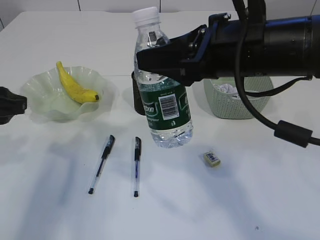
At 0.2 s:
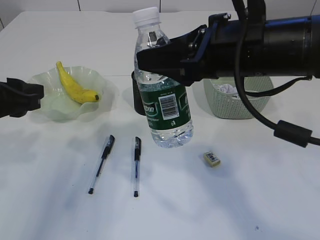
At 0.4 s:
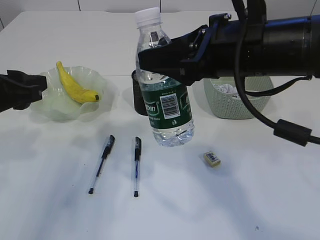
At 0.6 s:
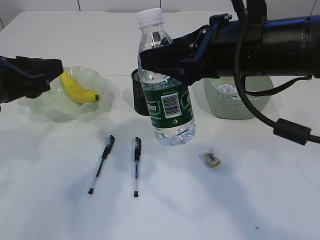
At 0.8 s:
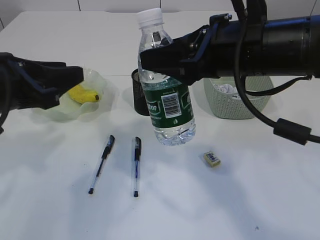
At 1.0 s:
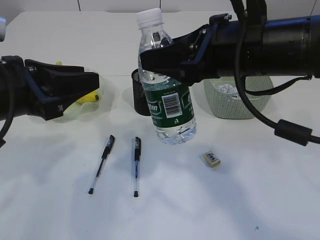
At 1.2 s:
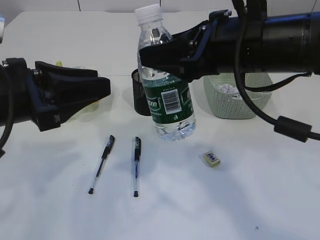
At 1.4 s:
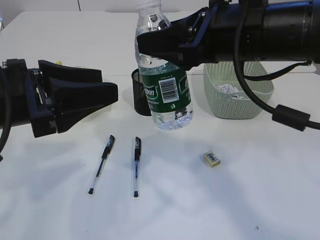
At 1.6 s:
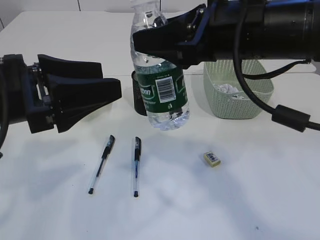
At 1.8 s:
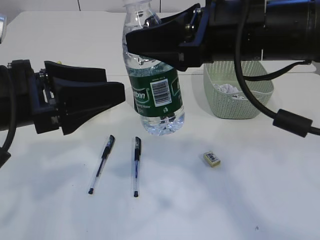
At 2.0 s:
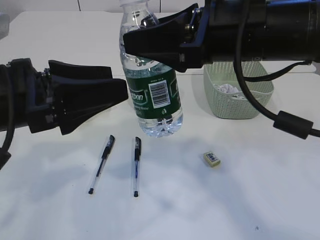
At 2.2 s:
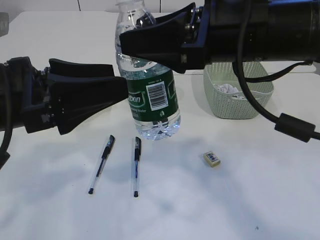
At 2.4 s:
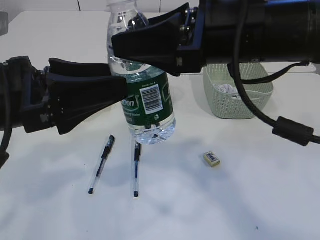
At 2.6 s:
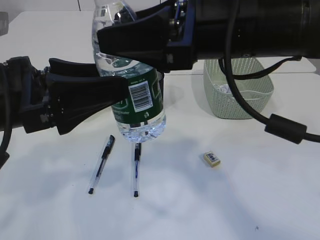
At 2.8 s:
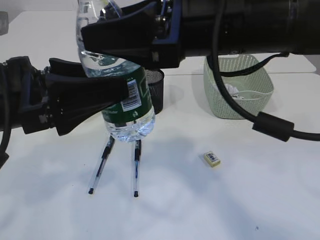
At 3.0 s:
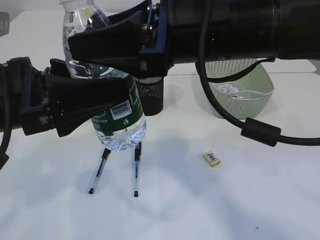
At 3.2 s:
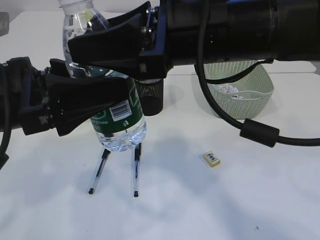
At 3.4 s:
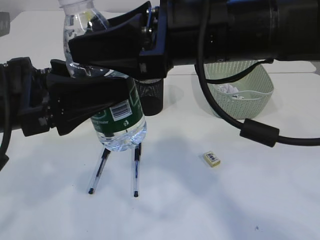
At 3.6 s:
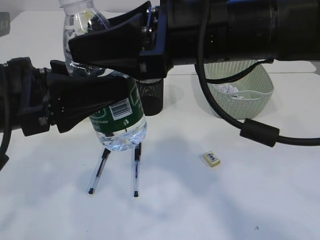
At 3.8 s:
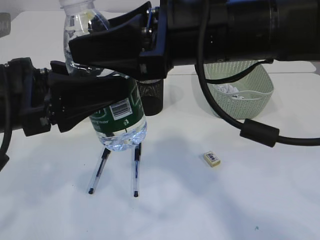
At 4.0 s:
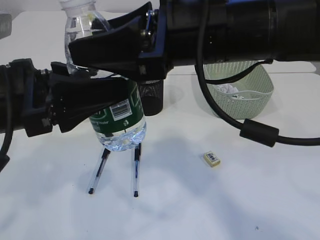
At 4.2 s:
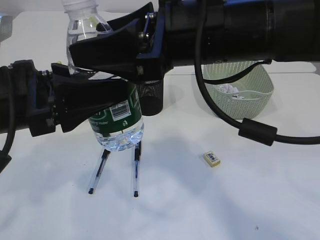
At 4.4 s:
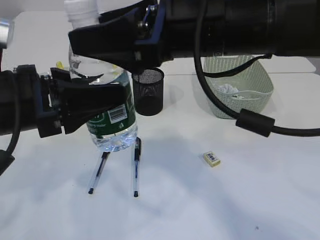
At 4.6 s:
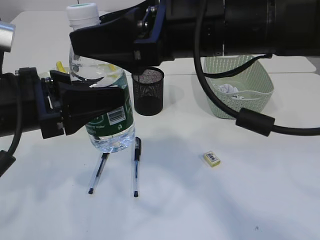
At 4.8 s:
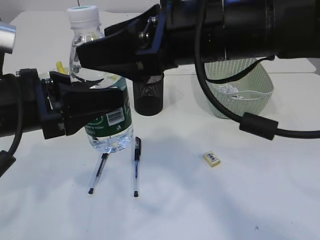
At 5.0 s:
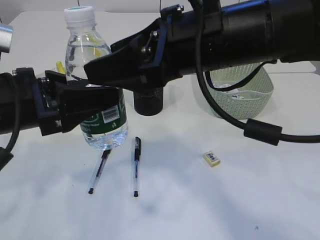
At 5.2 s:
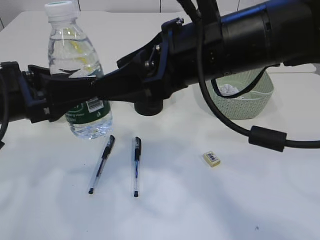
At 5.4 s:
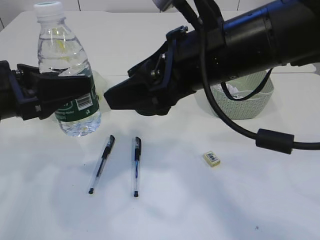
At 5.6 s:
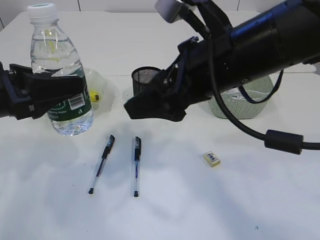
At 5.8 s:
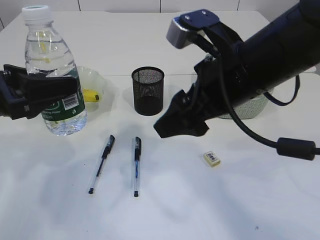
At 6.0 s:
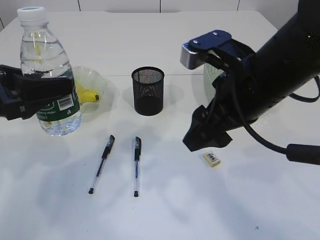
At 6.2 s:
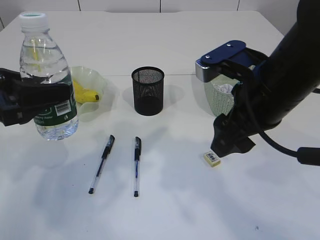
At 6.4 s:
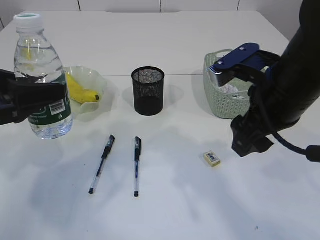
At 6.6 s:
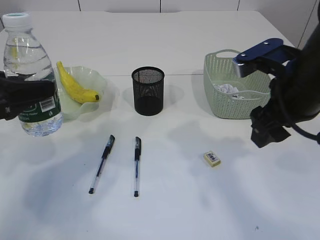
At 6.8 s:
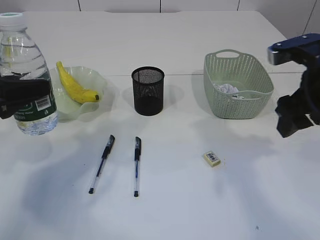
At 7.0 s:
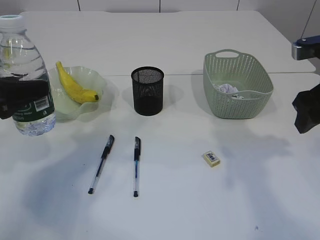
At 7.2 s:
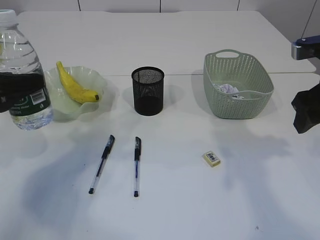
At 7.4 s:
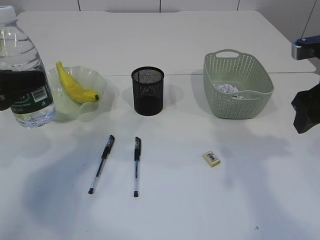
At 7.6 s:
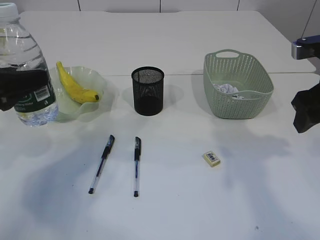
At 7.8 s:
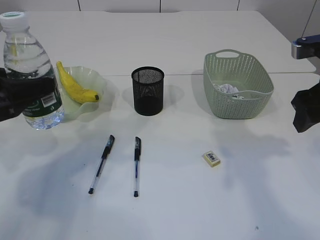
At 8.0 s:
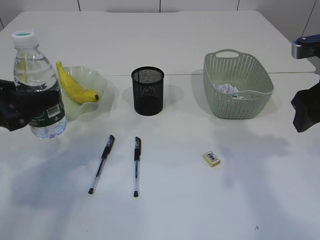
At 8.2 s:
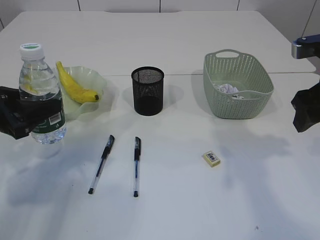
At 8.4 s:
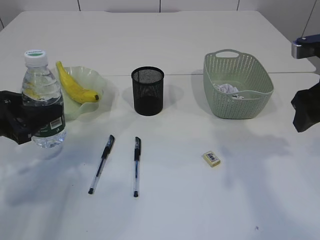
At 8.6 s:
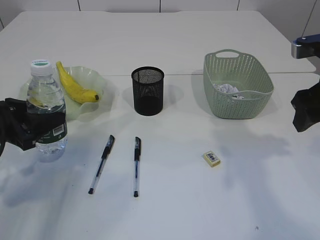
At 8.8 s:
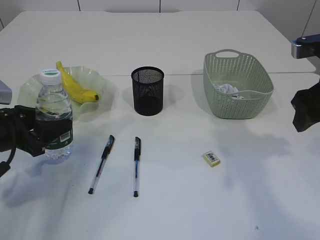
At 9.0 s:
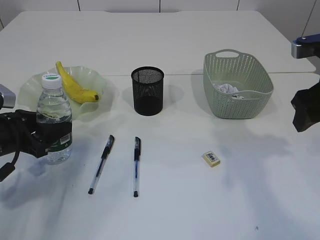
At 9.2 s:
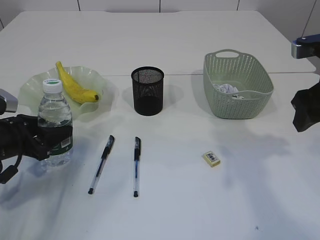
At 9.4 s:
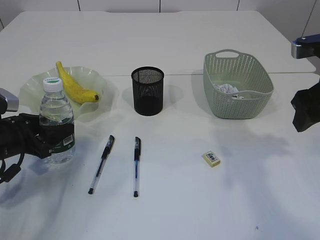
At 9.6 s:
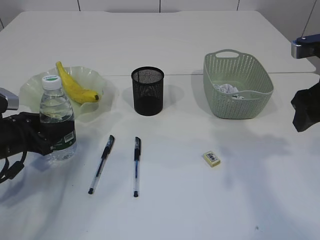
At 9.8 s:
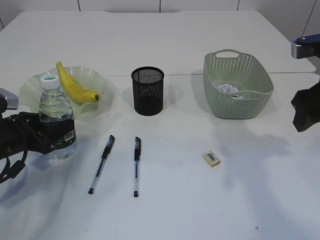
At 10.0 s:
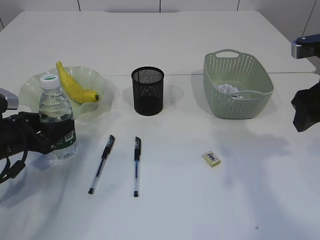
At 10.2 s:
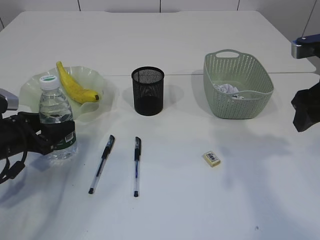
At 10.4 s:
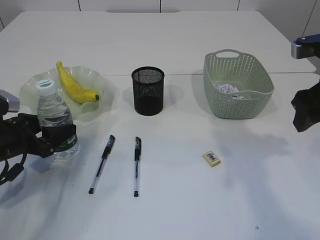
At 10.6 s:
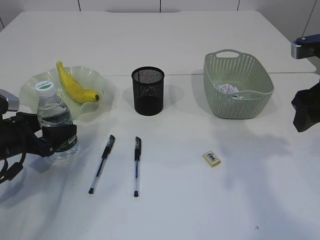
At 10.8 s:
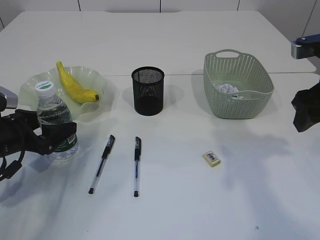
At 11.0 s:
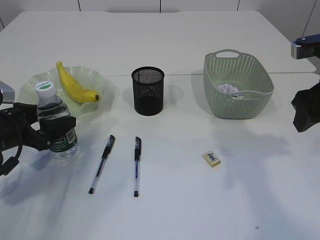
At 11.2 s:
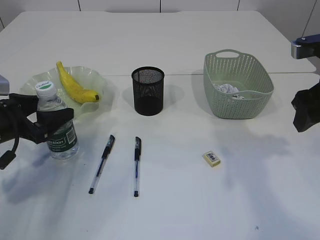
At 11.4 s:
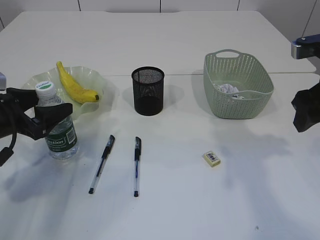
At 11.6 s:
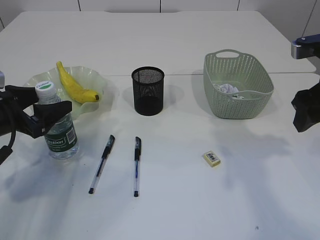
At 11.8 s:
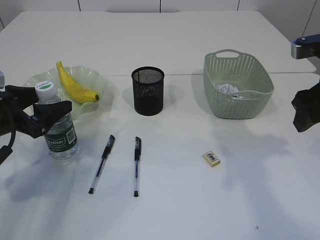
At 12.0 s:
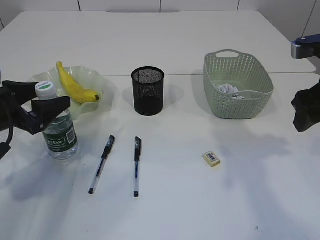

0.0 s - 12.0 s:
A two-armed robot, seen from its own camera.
Step, 0.0 s - 5.2 s: transfer the bottle to the left arm.
0.0 s - 1.6 s: The left gripper travels to the right by approximately 10 cm, and opens up.
1.6 s - 3.0 s: The right gripper ends up roughly 5 cm from where it was.
3.0 s - 4.4 s: The left gripper closes.
4.4 s - 6.0 s: The left gripper is displaced to the left by some 5 cm, while the right gripper heads downward and to the right, covering roughly 10 cm.
6.0 s - 7.6 s: The right gripper travels to the right by some 15 cm.
7.6 s - 9.0 s: The left gripper heads downward, covering roughly 10 cm.
9.0 s - 10.4 s: The grippers move only a little.
10.4 s - 12.0 s: The left gripper moves upward, about 5 cm.

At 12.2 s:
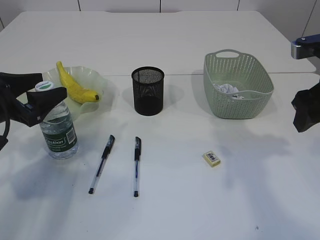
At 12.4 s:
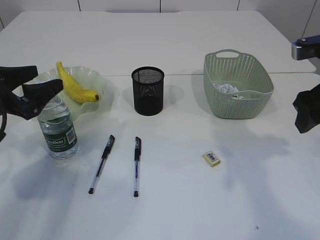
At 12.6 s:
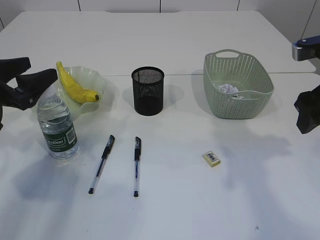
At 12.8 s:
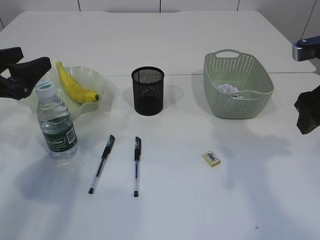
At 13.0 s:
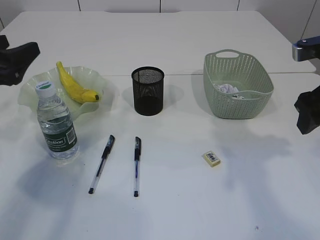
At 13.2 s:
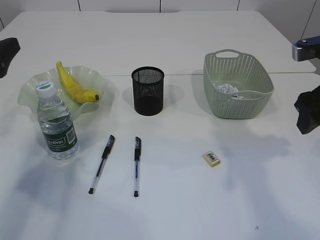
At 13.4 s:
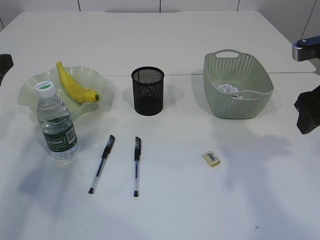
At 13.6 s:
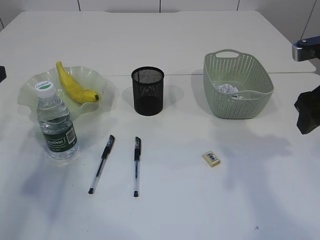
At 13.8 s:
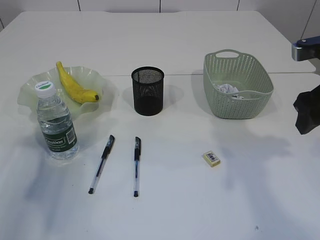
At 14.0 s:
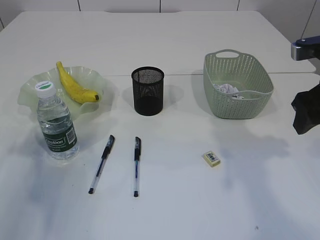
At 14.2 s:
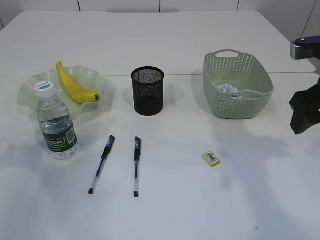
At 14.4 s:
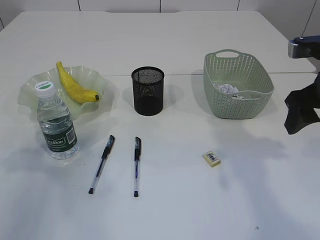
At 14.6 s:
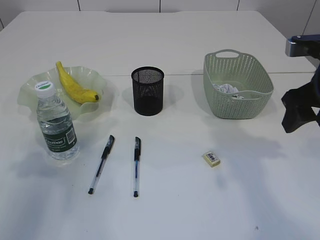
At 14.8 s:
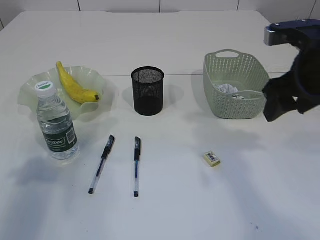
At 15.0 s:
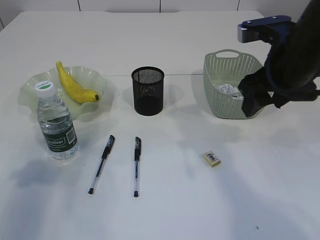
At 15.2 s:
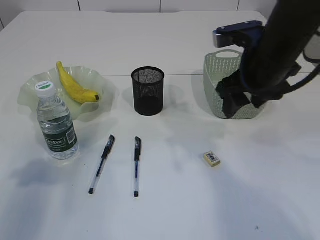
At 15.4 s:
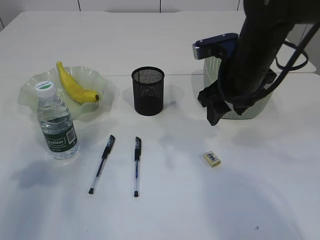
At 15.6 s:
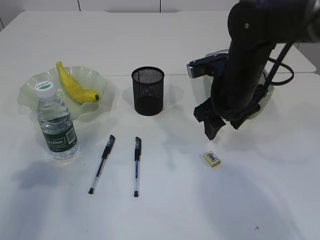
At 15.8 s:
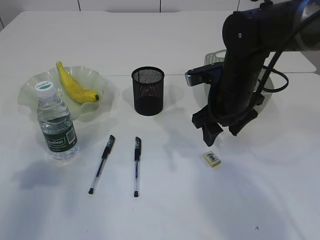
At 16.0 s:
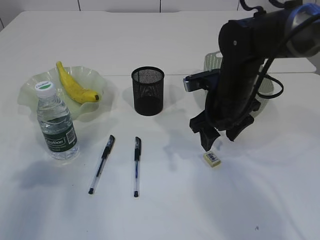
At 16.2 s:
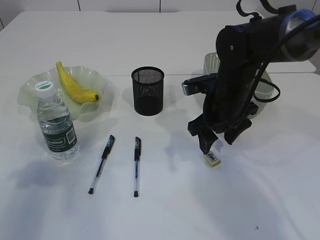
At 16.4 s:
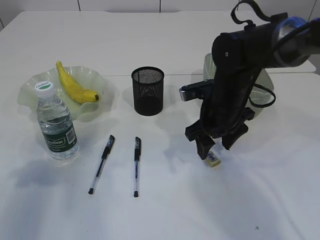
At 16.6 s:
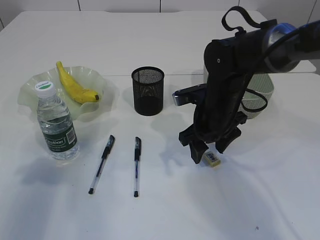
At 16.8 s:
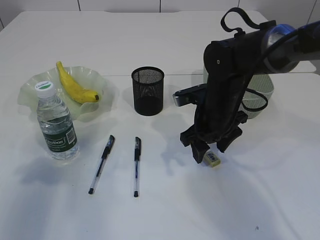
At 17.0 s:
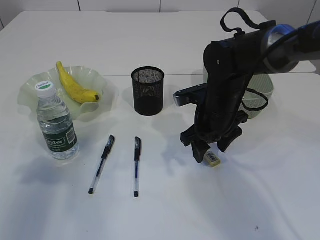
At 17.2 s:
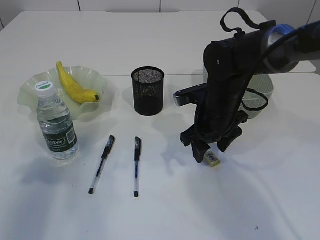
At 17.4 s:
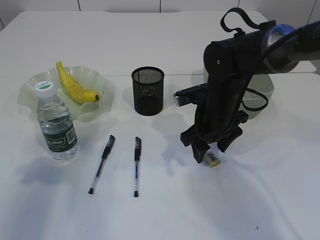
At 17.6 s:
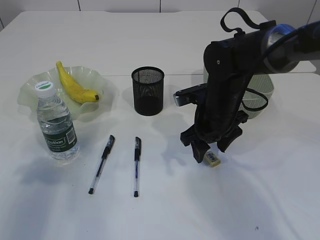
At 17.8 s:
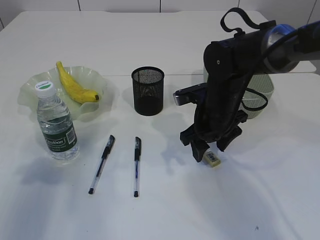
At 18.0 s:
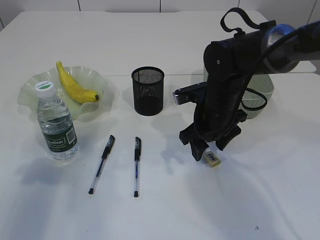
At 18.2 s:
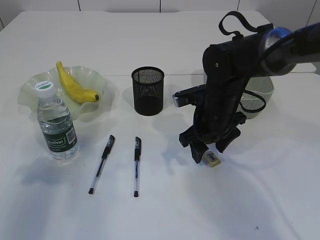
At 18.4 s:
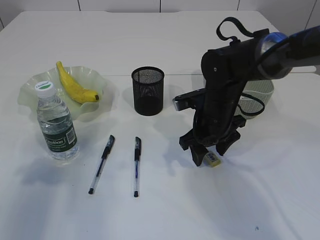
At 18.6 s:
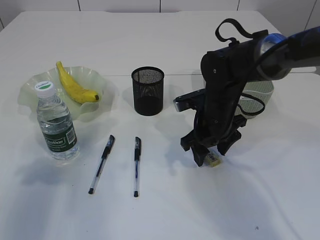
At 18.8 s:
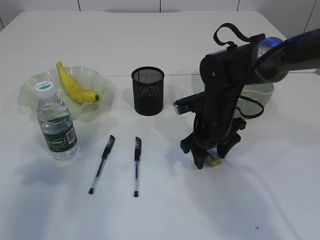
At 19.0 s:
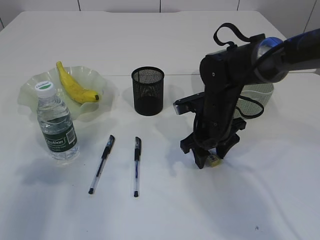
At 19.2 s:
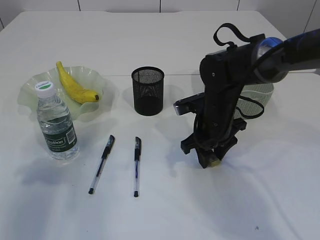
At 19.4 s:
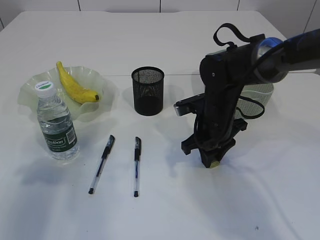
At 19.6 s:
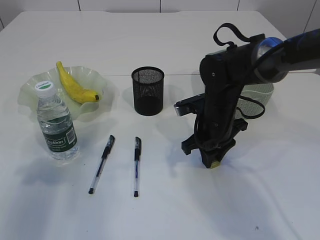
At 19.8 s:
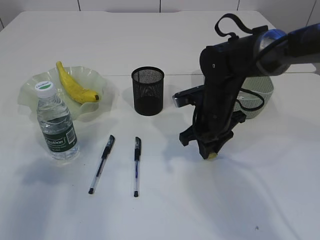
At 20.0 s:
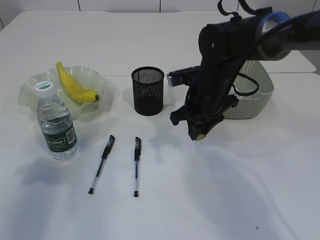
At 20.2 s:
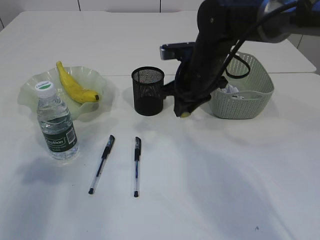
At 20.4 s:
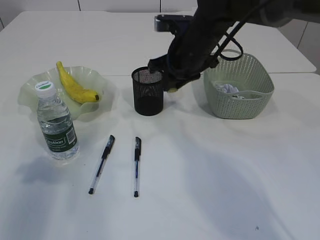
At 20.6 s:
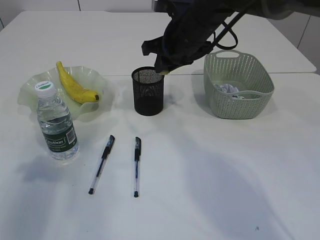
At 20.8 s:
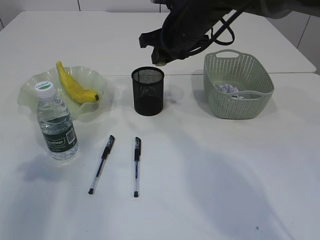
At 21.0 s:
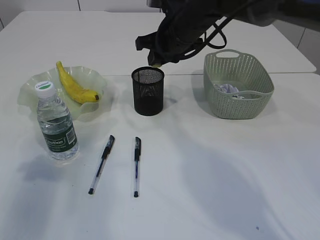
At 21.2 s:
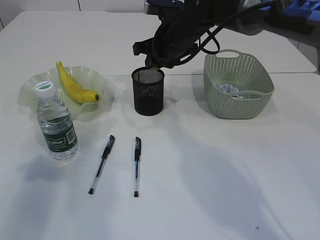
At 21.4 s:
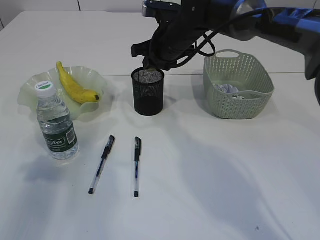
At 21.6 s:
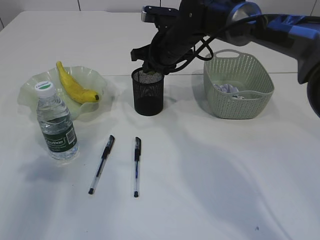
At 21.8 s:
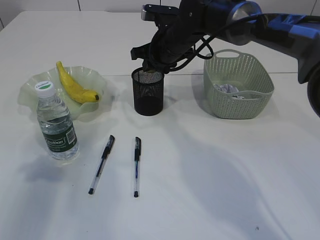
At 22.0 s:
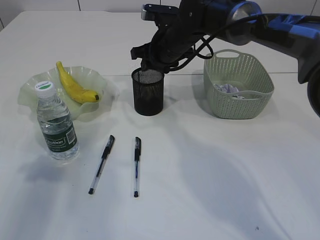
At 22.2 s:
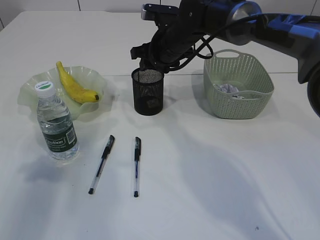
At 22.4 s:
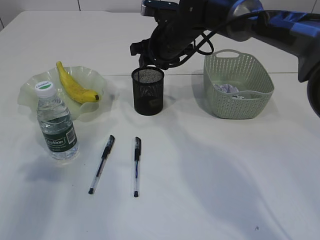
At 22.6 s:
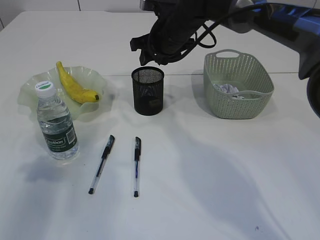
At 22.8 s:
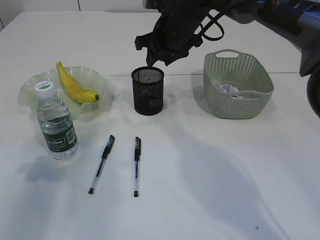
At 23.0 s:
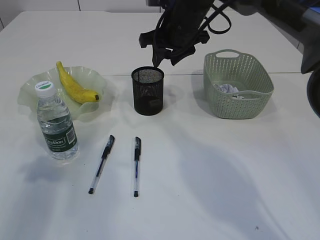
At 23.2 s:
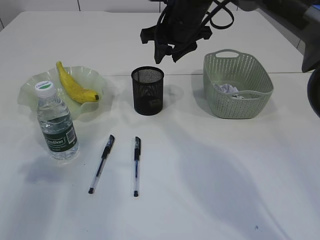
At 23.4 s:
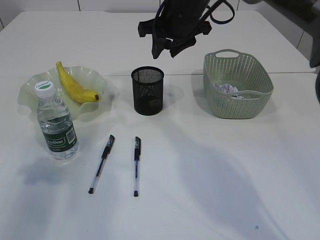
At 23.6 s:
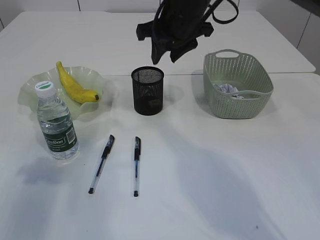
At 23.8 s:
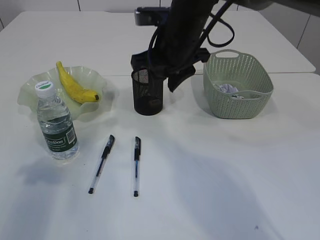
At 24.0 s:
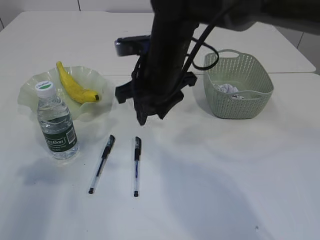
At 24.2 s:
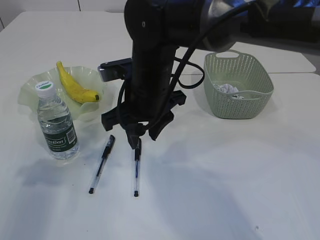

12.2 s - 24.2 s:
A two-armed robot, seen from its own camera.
Step, 12.8 s - 19.8 s: Pick up the eraser.
Step, 20.0 s - 23.2 s: Place the eraser into the pen holder.
12.2 s - 13.8 s: The left gripper shifts roughly 5 cm upward.
13.8 s - 15.2 s: The right gripper travels to the left by about 10 cm. Meanwhile the left gripper moves approximately 5 cm.
15.2 s - 16.6 s: The right gripper travels downward and to the left by some 15 cm.
16.6 s - 18.2 s: Both grippers stay put.
18.2 s - 19.8 s: The right gripper closes its fingers.
19.8 s - 21.2 s: The right gripper heads upward, forward and to the left, covering roughly 15 cm.
21.2 s - 22.6 s: There are only small adjustments of the grippers.
22.6 s - 24.2 s: The right gripper is displaced backward and to the left by roughly 15 cm.
